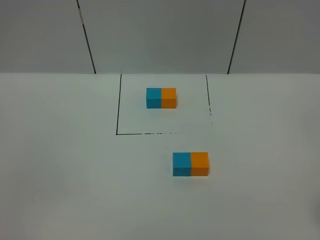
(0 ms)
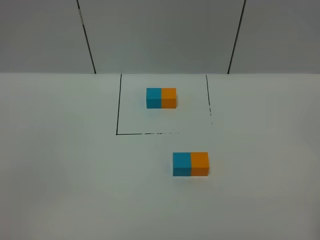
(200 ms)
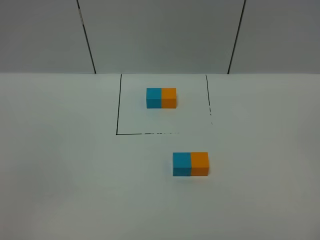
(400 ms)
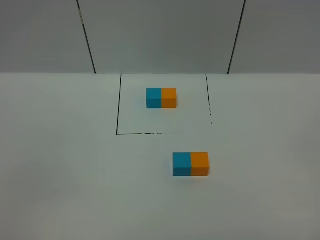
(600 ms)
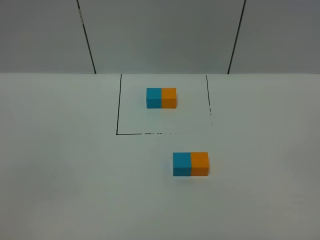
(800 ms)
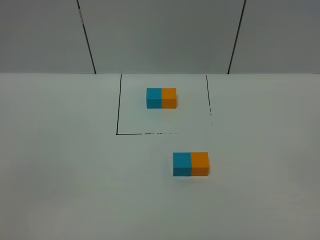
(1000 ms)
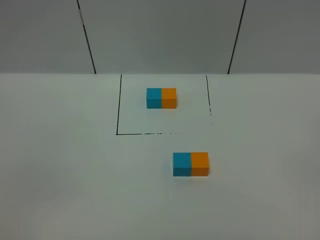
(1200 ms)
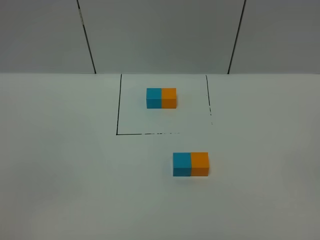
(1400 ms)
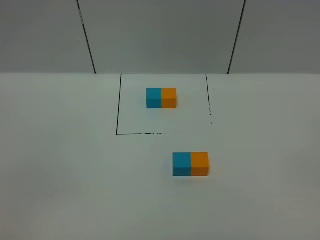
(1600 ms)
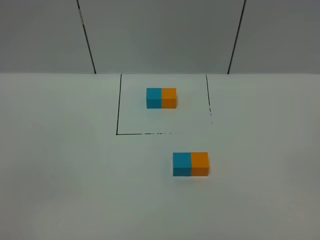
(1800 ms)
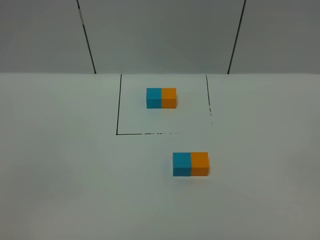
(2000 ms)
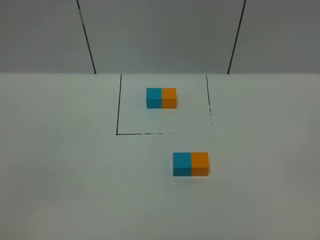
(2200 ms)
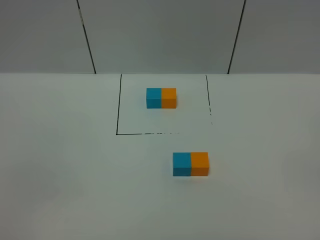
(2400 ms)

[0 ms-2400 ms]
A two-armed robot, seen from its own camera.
Task of the whole recording: According to the building block template in front, assemble the scattered blocks together.
1200 ms to 2400 ms: Both grippers stay about where they are.

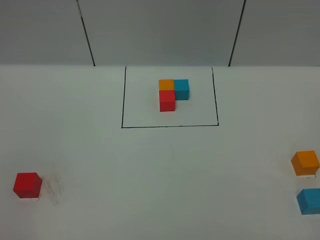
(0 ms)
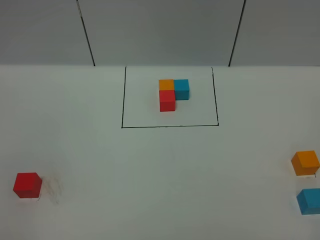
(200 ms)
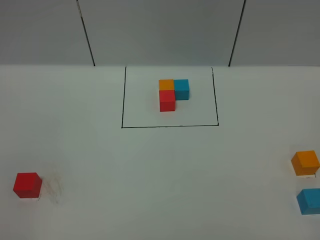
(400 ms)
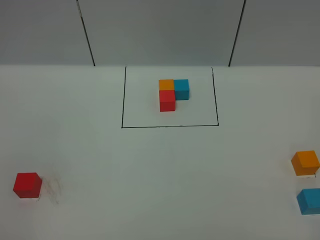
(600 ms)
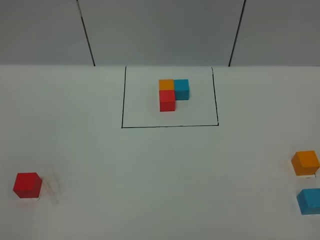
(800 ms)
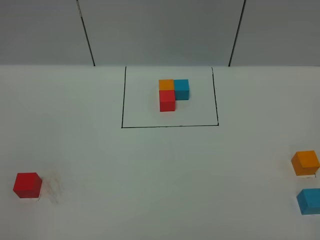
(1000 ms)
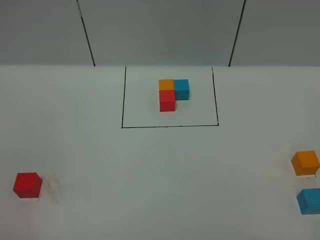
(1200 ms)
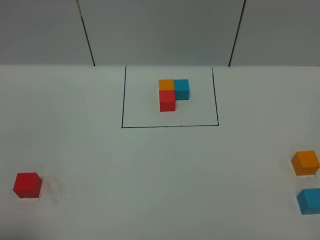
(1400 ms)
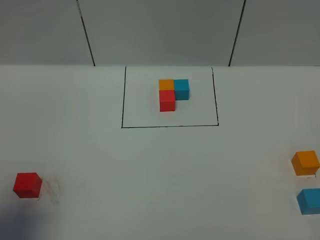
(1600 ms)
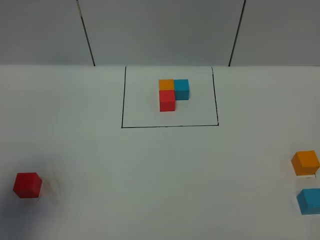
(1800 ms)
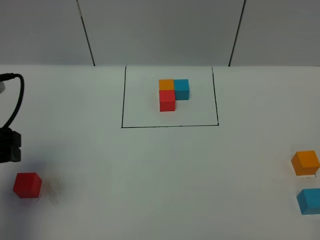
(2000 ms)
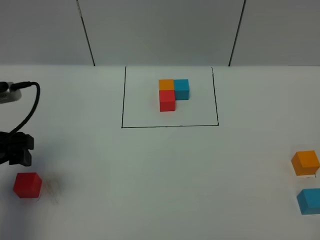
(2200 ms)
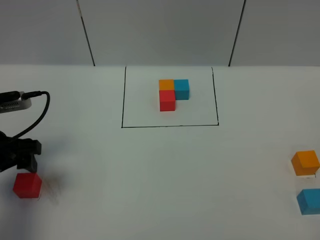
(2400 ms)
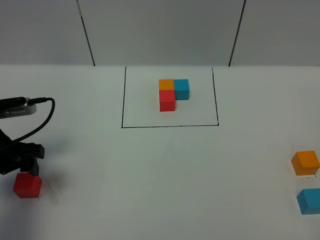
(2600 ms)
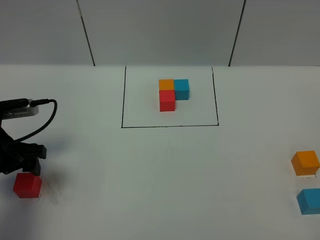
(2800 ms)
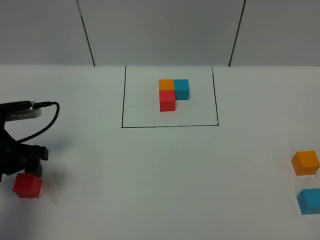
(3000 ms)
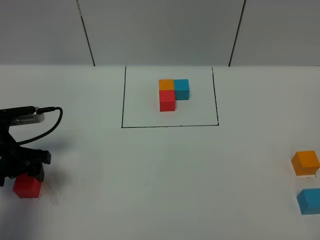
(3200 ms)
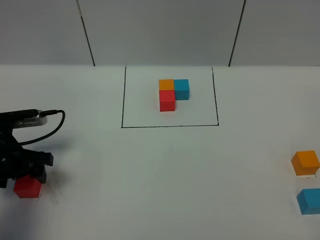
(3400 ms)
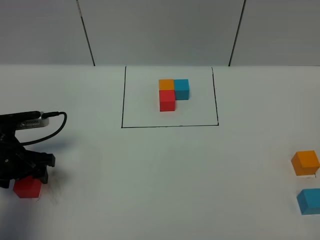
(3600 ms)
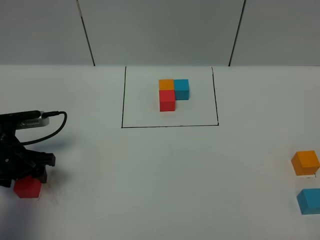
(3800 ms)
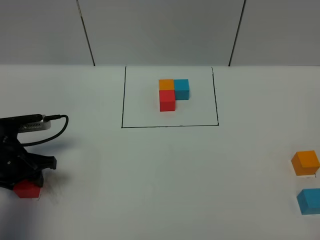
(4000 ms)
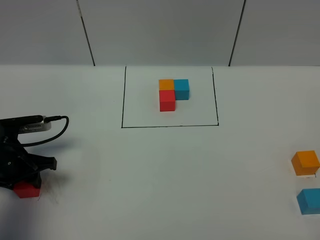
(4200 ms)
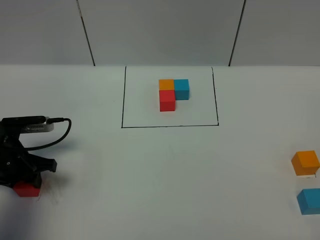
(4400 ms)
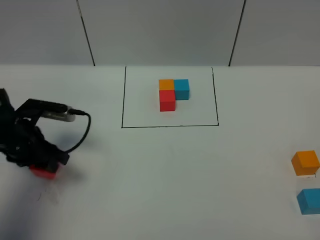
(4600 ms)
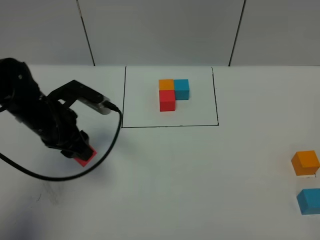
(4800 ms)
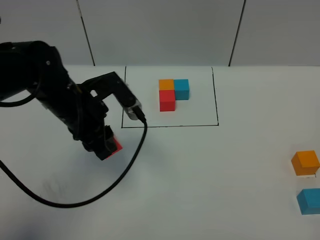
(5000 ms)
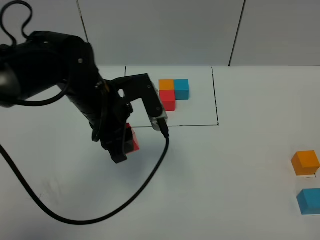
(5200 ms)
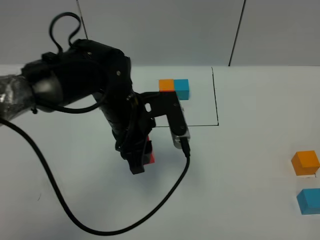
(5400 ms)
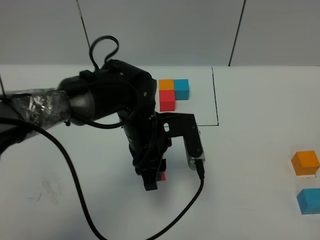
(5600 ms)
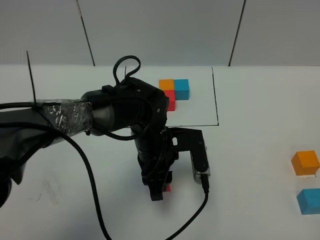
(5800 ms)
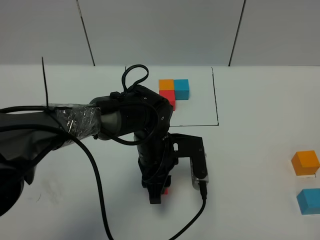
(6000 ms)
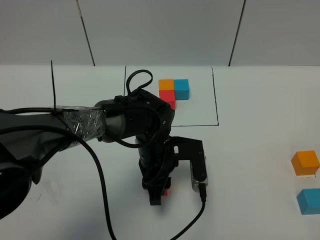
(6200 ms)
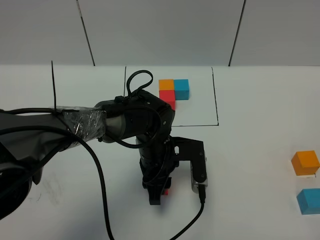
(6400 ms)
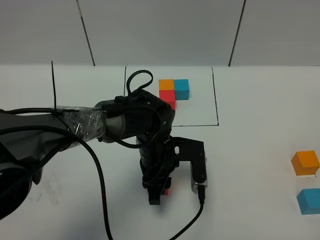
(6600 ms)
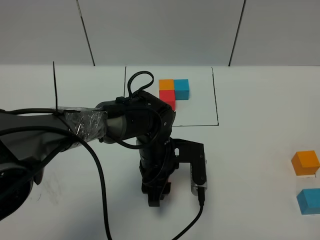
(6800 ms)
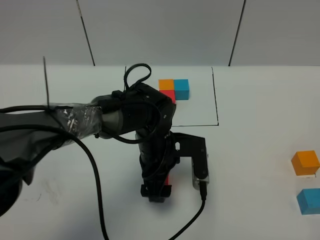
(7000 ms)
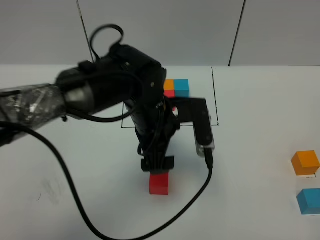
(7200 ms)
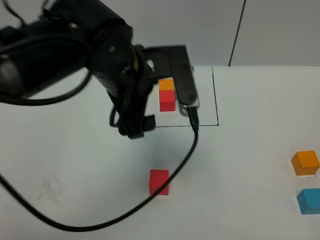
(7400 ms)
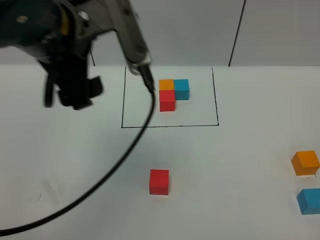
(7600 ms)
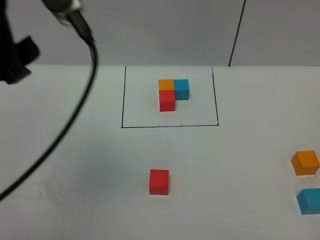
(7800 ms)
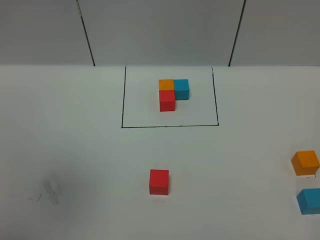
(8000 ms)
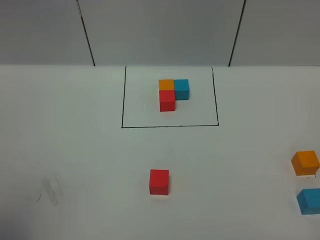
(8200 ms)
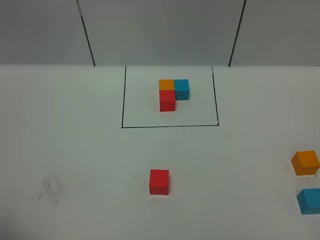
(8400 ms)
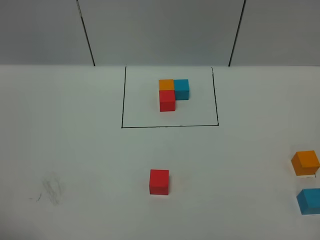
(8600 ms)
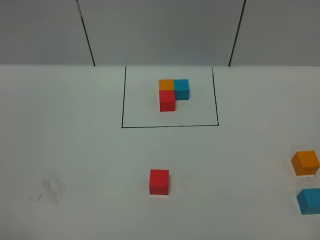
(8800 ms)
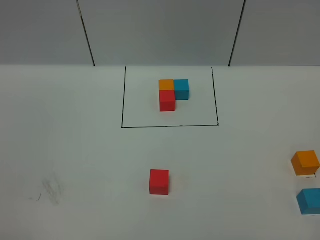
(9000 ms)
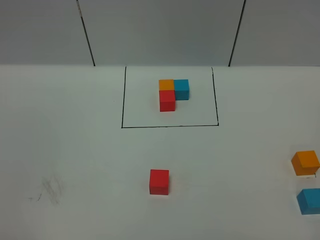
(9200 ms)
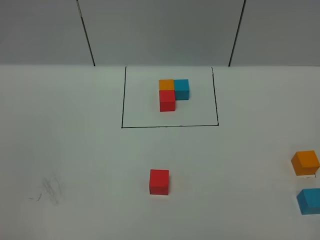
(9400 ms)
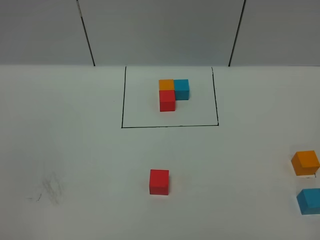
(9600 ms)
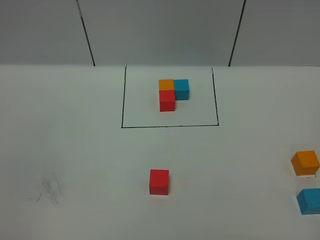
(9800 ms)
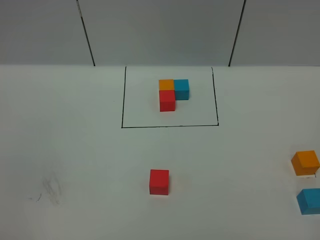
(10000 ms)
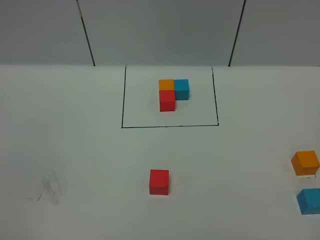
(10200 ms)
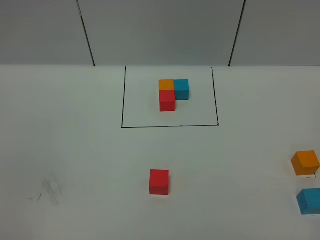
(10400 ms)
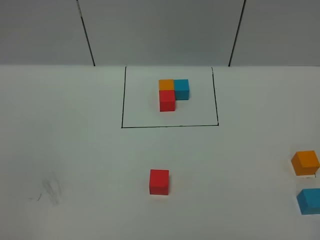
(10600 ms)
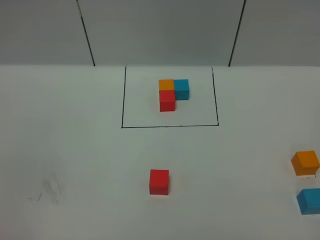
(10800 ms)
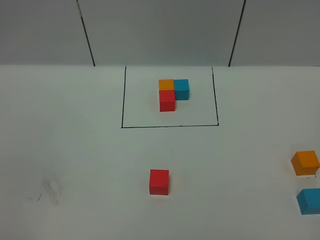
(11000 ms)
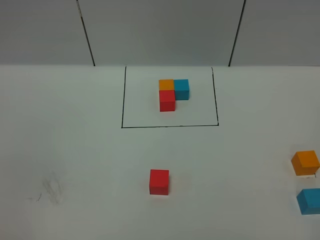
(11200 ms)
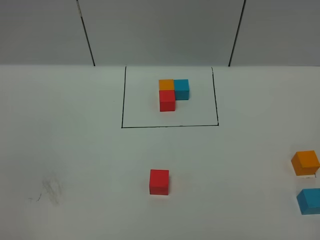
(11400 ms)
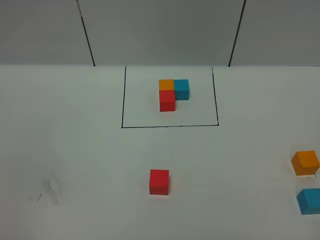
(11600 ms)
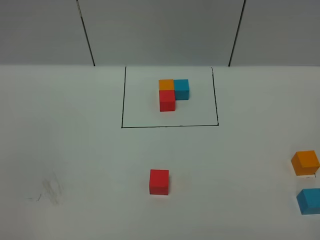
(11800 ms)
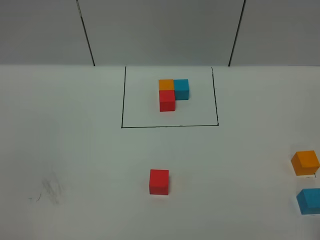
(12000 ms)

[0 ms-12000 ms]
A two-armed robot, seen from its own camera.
Task of the whole recording: According to the building block template in front, assemble the scattered blocks together.
Step, 2000 ms to 7200 ms: Put the red cube in the center of the table.
0 ms to 1600 ms: The left gripper is displaced forward and upward by about 15 cm.
1600 ms to 3000 ms: The left gripper goes some 25 cm downward and forward.
3000 ms to 4400 ms: The left gripper closes up.
4400 ms to 6000 ms: The left gripper is displaced to the right by about 30 cm.
6000 ms to 7600 ms: The left gripper travels upward by some 30 cm, and opens up.
7600 ms to 9000 ms: The left gripper travels backward and to the left by roughly 35 cm.

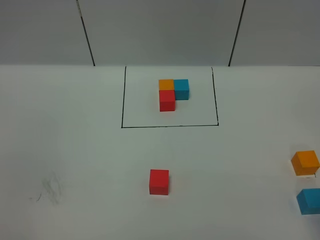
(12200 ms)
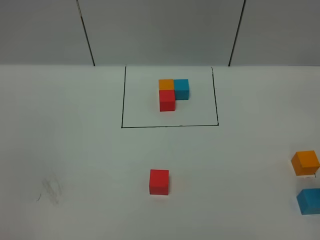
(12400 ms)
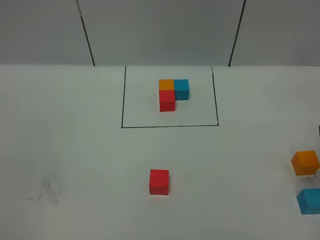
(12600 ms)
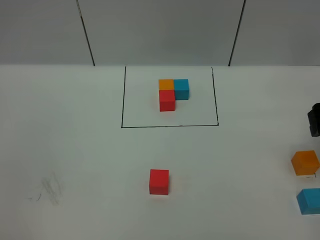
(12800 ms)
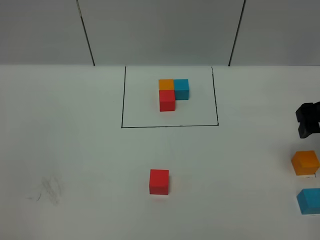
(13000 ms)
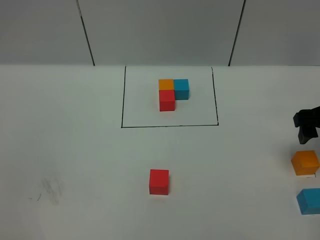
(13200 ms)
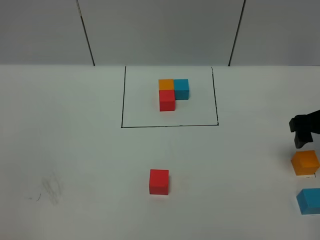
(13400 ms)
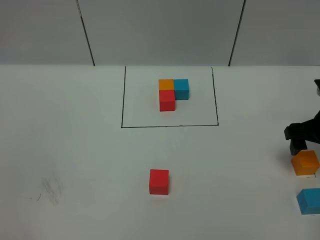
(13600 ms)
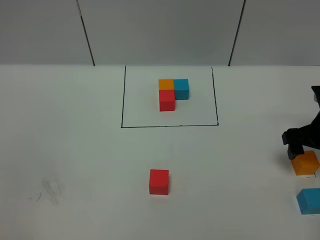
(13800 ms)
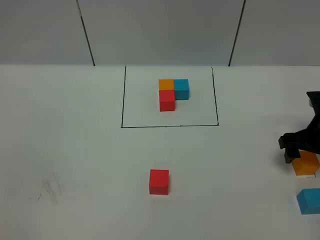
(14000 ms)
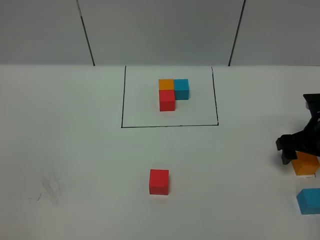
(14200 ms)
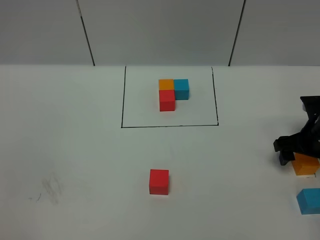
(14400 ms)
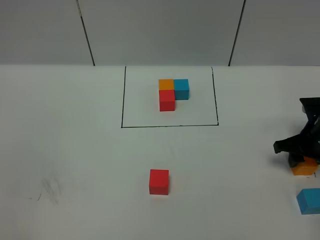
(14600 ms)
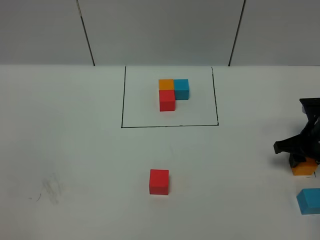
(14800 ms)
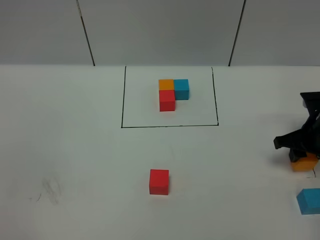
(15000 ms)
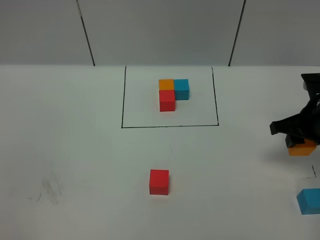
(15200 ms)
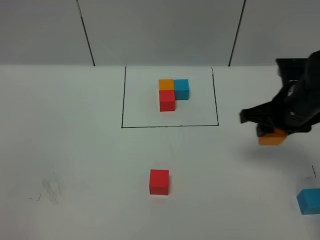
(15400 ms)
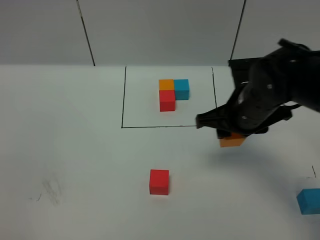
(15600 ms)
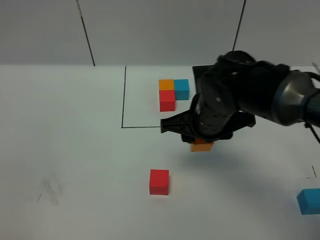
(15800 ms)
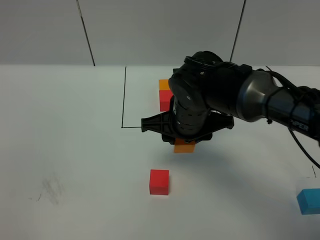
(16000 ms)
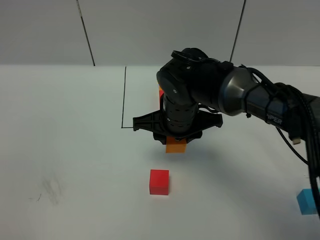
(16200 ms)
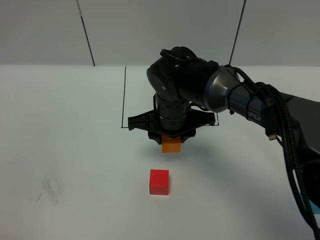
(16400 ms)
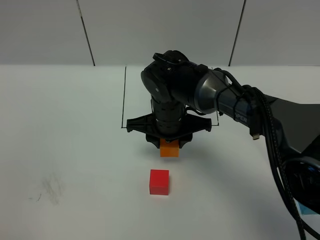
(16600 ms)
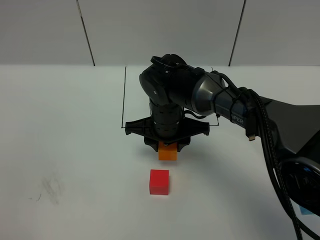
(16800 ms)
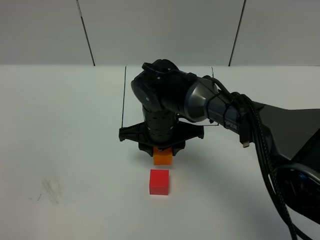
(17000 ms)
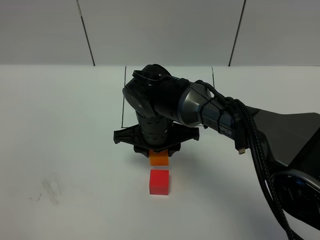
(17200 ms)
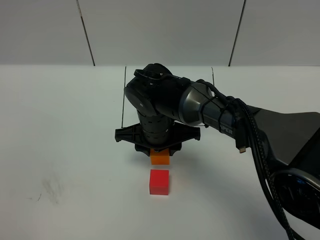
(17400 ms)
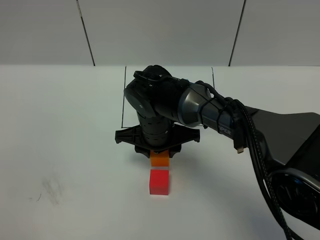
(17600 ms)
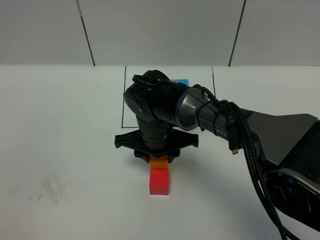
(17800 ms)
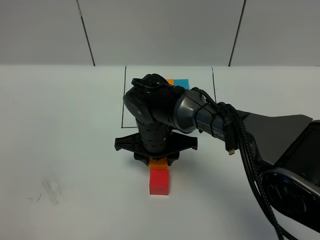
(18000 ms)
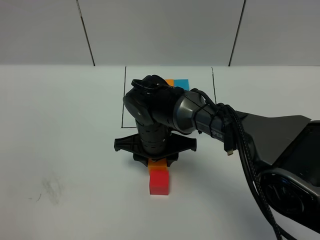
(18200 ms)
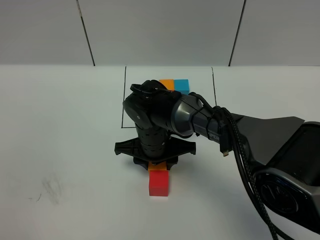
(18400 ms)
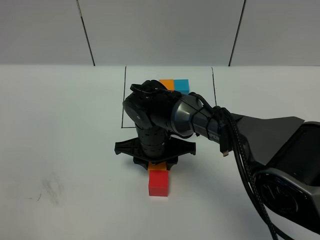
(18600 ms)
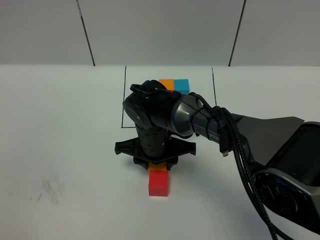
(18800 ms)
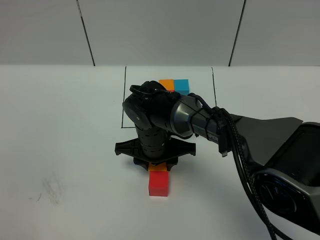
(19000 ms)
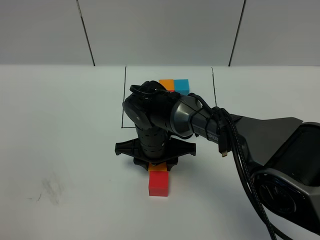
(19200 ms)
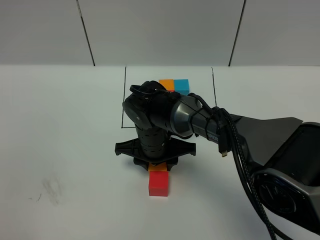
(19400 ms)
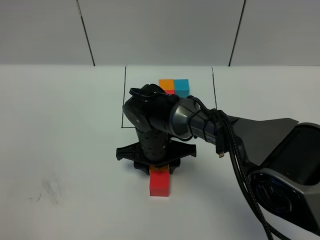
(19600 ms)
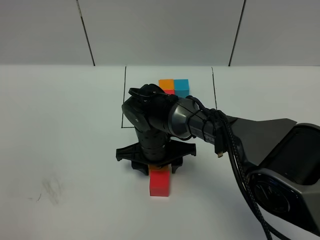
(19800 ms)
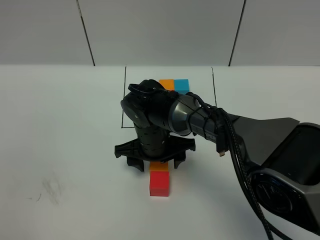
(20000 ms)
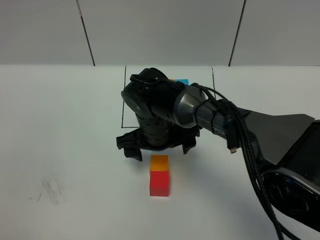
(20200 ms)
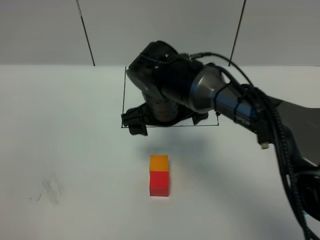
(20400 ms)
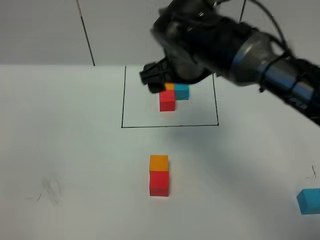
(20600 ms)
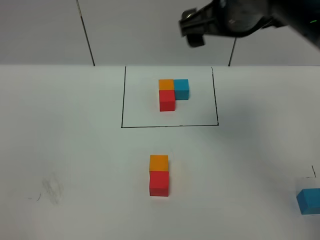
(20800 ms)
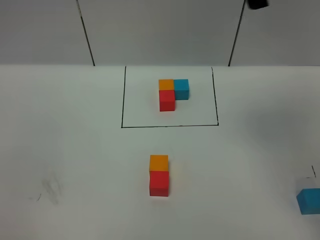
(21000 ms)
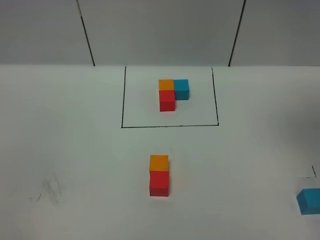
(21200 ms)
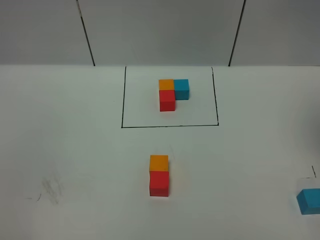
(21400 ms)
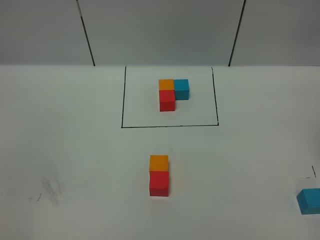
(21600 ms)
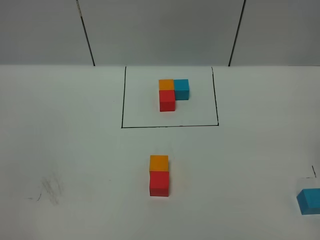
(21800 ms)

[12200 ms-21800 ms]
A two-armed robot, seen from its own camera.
Task of the whole recording: According to the building block template in front, assemble the scattered blocks together.
Step, 12200 ms to 20200 ms: Put the orange cube on the behind of the red cube.
12200 ms to 13800 ms: The right gripper goes some 25 cm forward and downward.
13800 ms to 15400 ms: The right gripper shifts approximately 15 cm to the left and upward, and closes its fingers.
15400 ms to 17000 ms: The right gripper moves to the left, about 20 cm.
17000 ms to 18600 ms: The grippers make only small movements.
18600 ms to 20200 ms: The right gripper opens up.
20200 ms to 21800 ms: The right gripper moves to the right and upward, roughly 40 cm.
